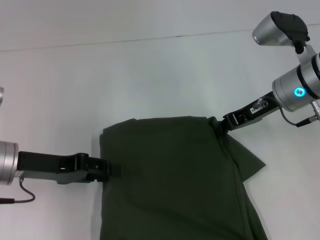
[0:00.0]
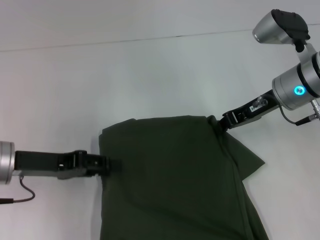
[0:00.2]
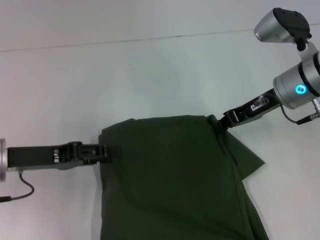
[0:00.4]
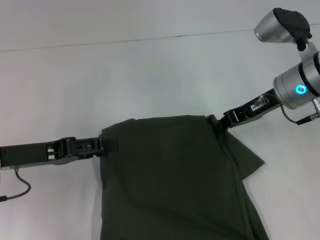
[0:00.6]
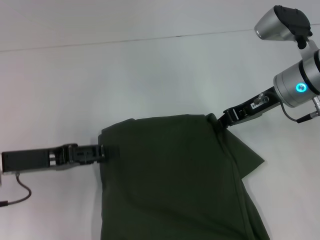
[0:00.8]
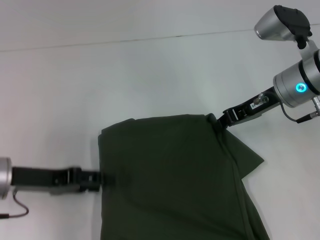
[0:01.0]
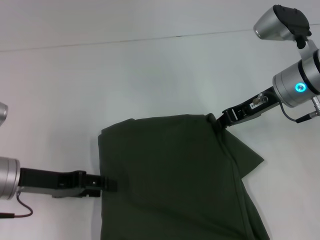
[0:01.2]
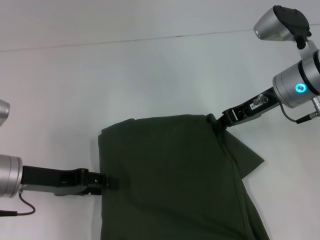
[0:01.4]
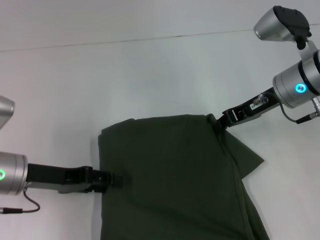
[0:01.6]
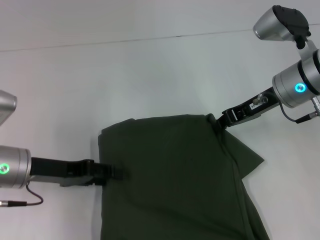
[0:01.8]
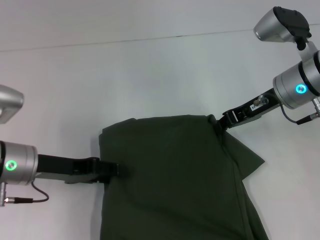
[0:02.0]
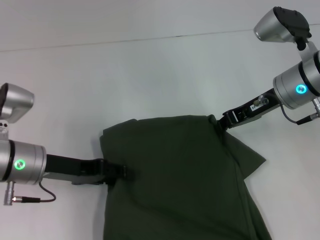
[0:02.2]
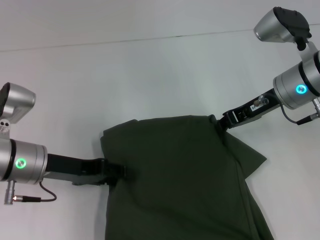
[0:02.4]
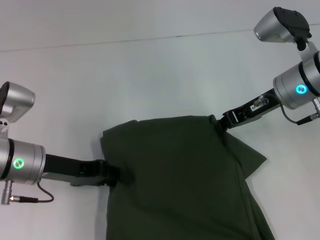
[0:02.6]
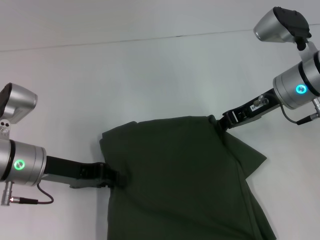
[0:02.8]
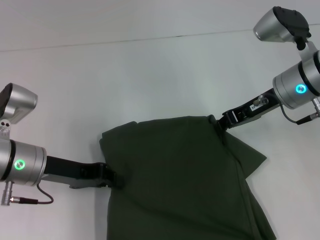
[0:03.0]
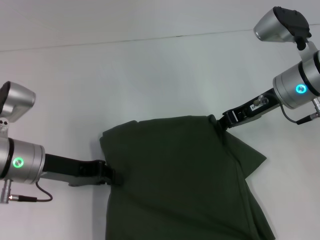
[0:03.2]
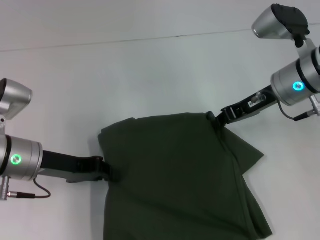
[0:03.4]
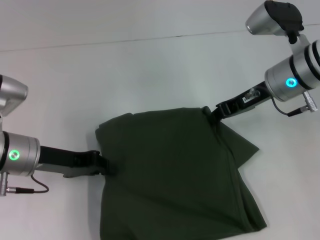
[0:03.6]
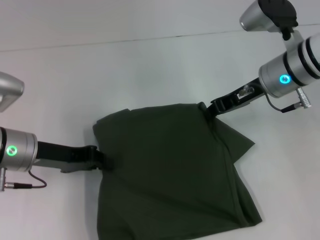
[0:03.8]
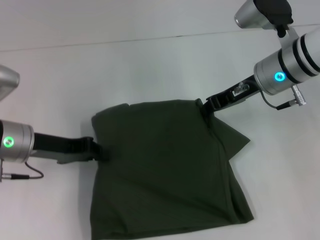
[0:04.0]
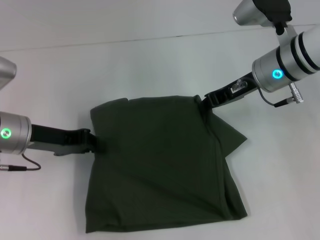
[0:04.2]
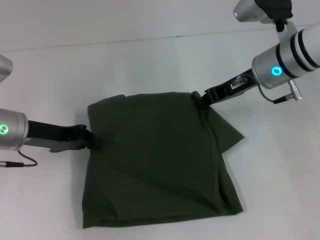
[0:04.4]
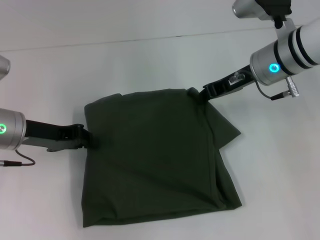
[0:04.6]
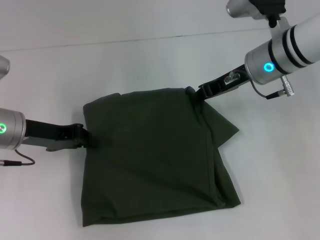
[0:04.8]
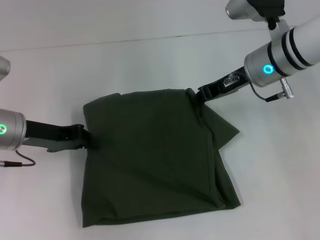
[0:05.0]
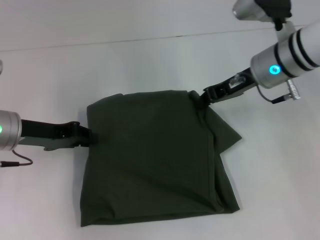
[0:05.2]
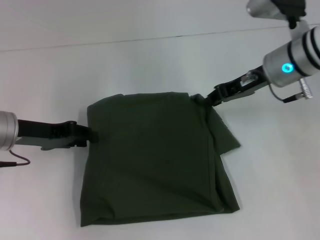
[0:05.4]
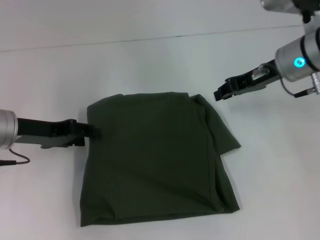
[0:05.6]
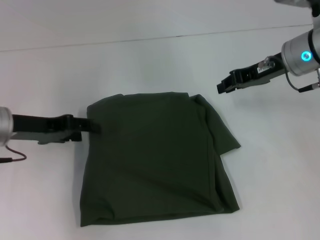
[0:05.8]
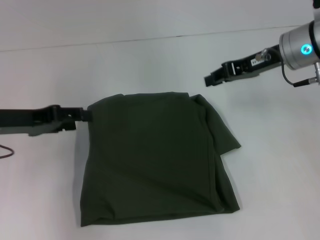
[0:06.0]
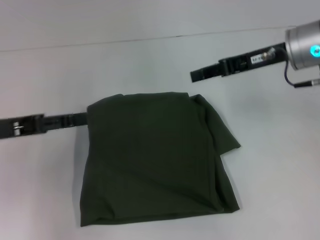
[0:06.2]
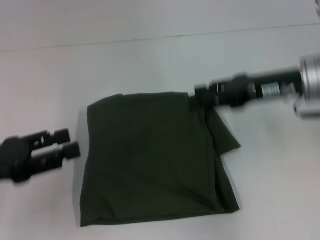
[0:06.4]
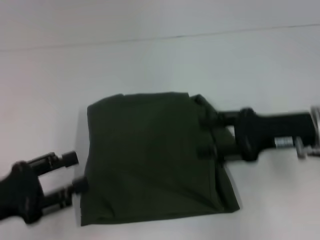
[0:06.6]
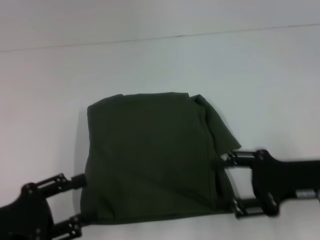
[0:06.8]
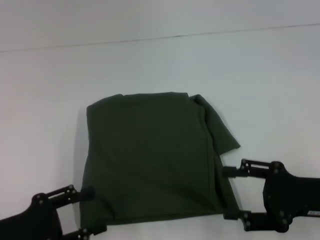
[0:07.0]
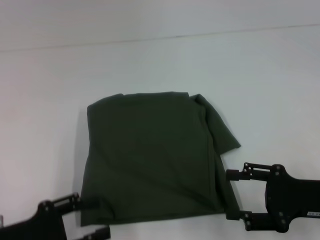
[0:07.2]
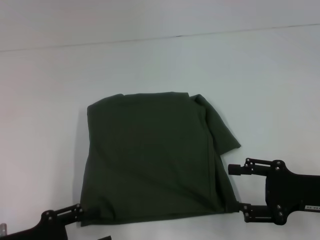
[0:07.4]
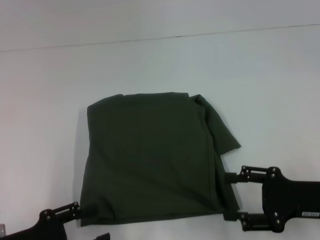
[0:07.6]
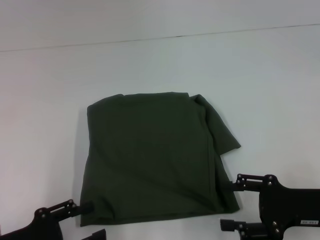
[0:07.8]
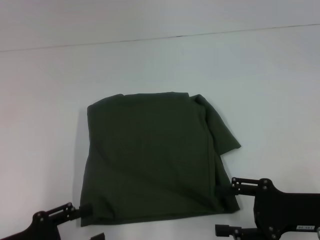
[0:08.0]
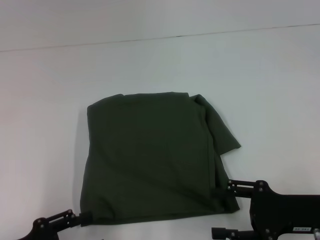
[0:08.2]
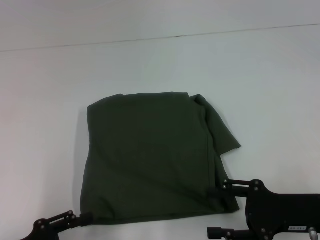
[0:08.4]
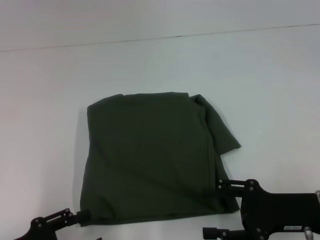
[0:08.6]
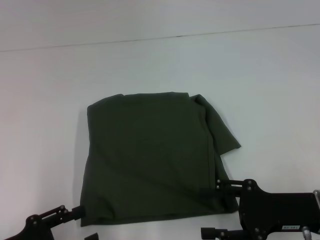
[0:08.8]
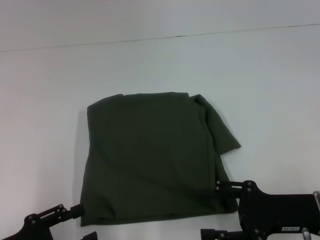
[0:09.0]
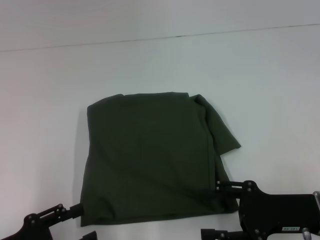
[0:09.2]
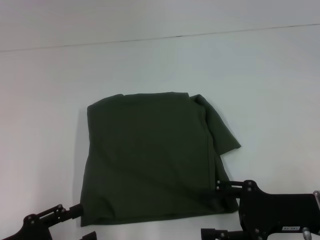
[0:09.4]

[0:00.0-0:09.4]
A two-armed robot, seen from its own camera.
0:00.0 to 0:01.6: The grippers stay close to where they were, moving slightly.
0:01.6 to 0:03.2: The left gripper closes up.
0:03.2 to 0:04.8: The right gripper ends up some 5 cm from where it was.
0:04.8 to 0:06.2: The left gripper is displaced backward and to the left by about 5 cm, and opens; the right gripper moves about 5 cm.
0:06.2 to 0:07.8: Both grippers travel together backward and downward, approximately 20 cm. The right gripper opens.
0:07.8 to 0:09.4: There are only small adjustments of the grippers.

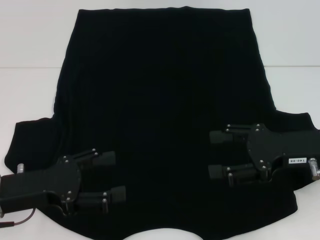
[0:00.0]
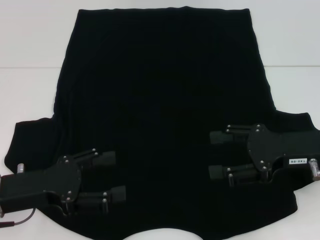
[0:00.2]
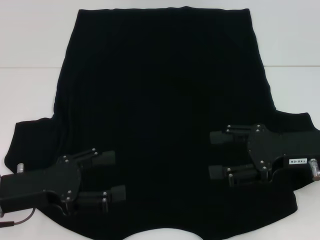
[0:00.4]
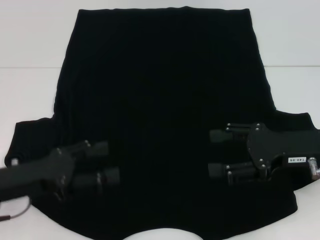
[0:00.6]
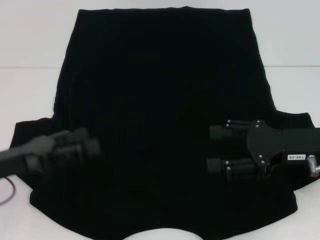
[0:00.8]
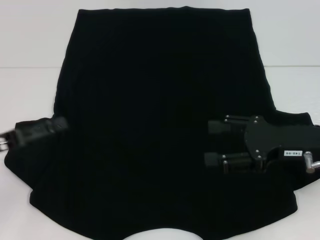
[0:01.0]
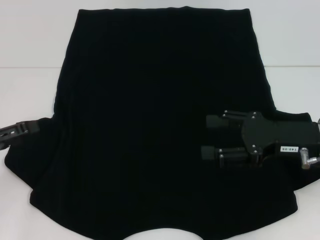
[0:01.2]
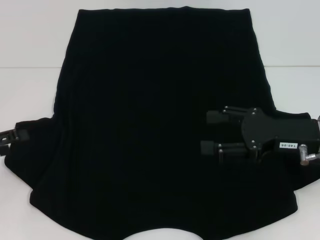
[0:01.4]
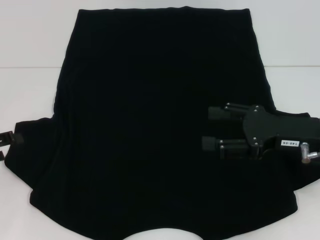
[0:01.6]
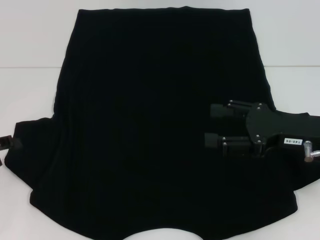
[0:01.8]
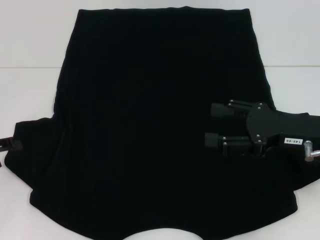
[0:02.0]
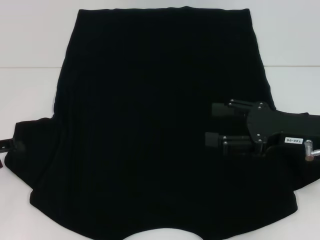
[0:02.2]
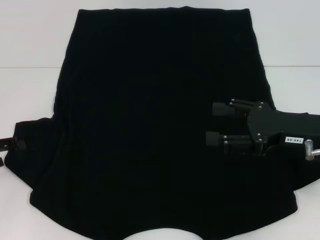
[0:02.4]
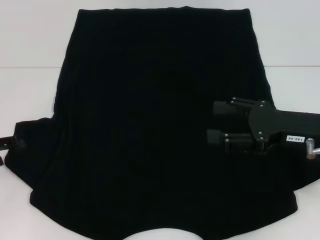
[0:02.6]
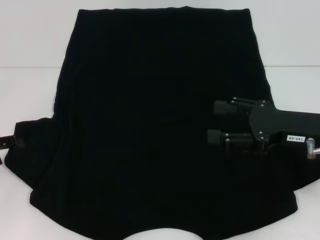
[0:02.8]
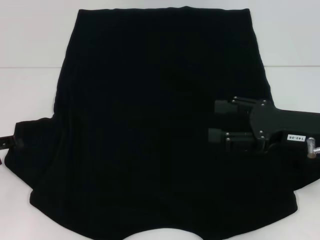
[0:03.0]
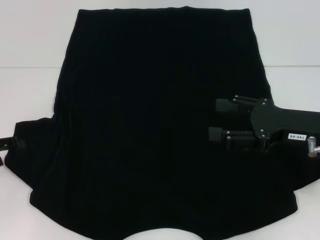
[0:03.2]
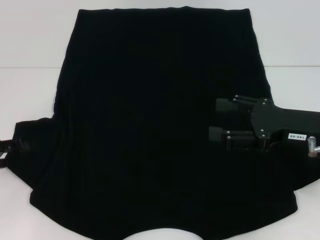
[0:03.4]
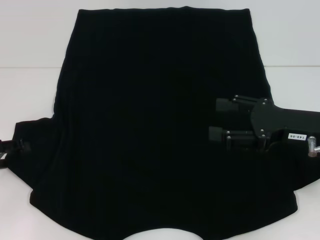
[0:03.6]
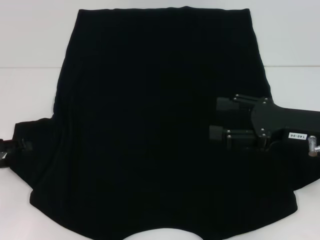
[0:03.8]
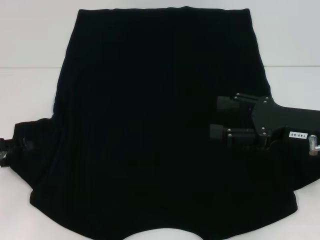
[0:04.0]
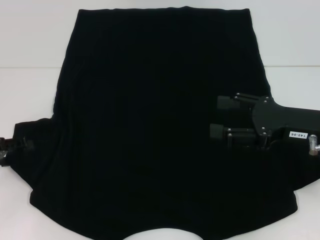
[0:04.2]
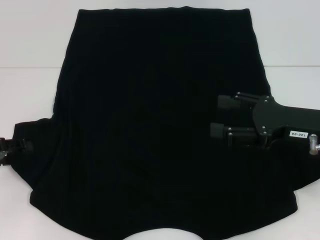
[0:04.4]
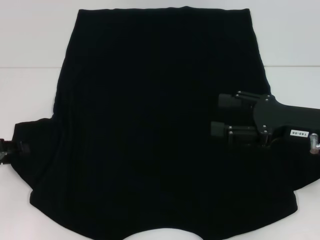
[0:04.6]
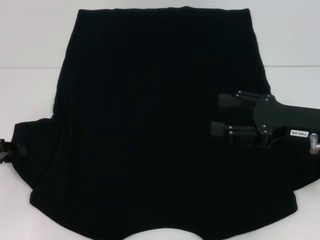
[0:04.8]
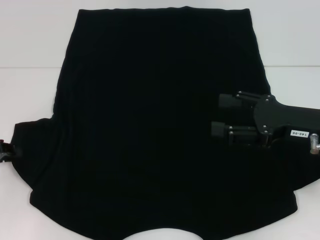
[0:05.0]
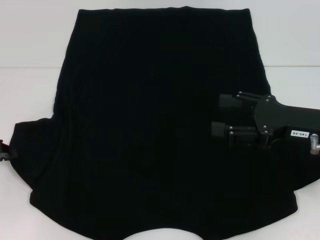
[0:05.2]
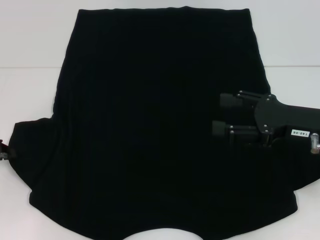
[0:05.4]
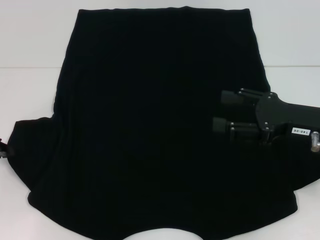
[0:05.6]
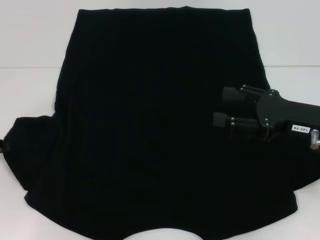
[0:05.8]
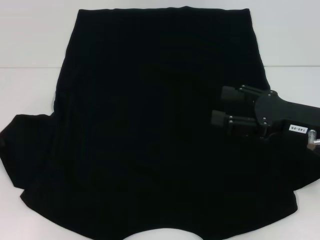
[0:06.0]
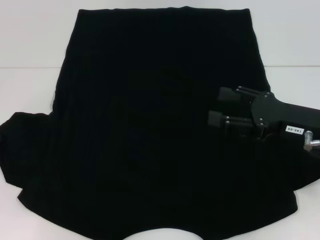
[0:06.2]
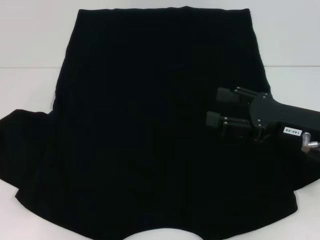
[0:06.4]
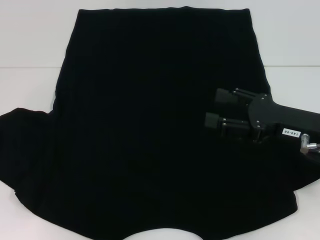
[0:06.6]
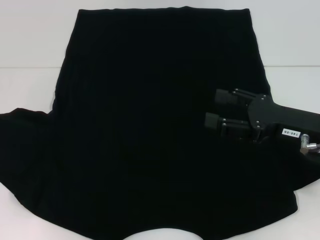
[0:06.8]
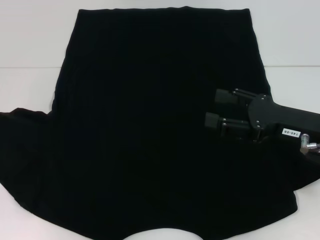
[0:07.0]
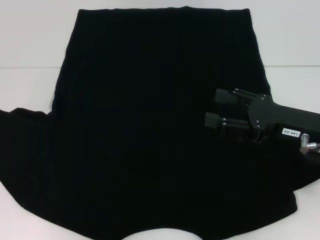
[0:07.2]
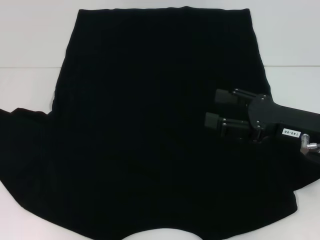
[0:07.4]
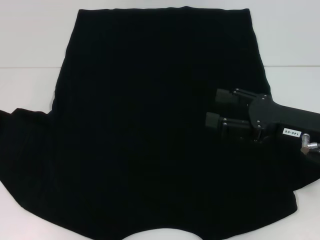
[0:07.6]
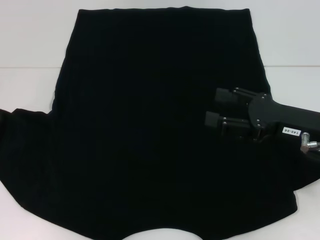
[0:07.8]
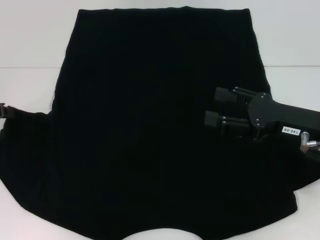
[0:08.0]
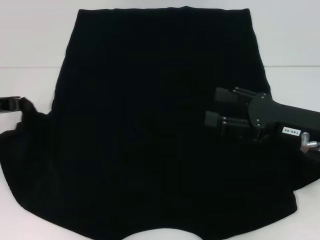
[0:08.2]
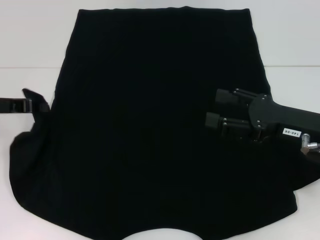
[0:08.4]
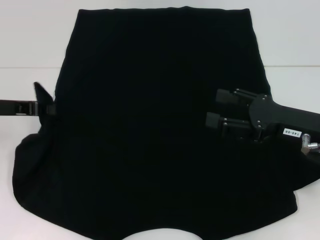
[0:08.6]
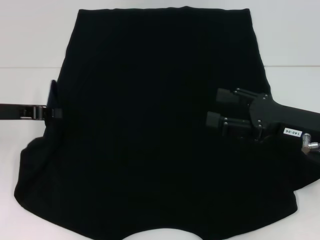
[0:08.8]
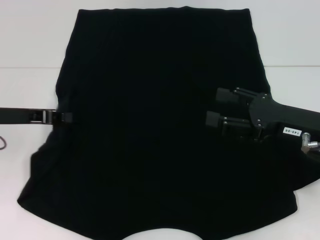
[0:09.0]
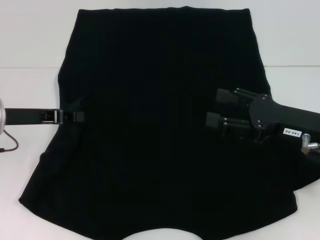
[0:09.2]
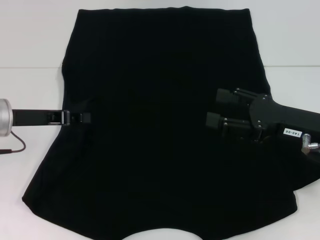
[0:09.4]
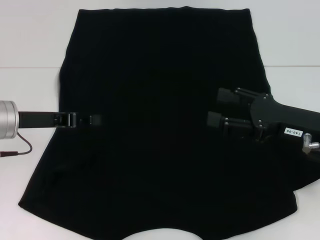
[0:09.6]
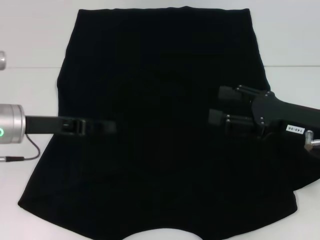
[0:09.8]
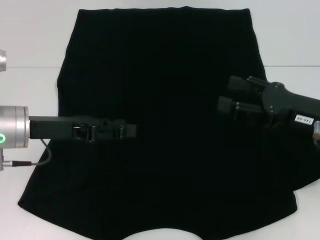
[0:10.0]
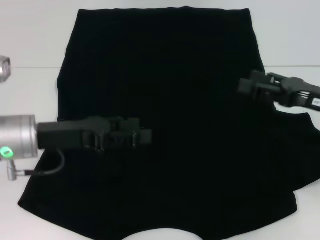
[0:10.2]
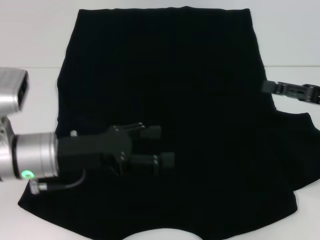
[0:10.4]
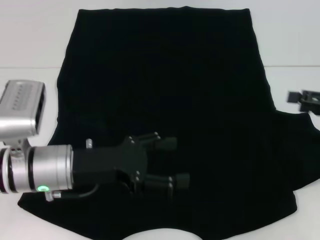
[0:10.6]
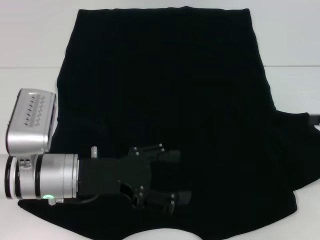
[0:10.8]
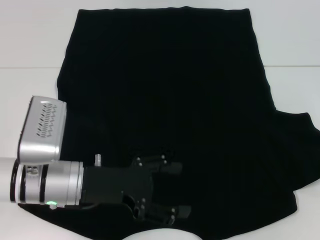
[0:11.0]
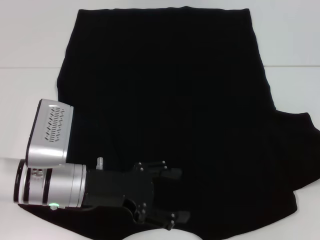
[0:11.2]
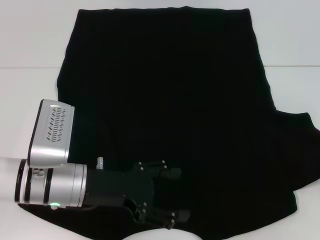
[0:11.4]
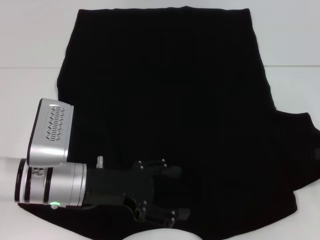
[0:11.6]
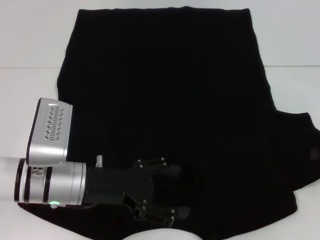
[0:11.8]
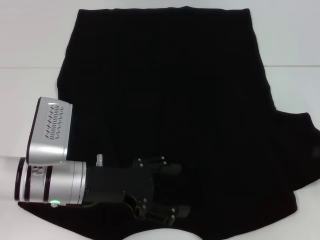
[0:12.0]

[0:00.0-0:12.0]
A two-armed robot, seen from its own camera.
Step, 0:00.0 to 0:09.6: Fold the bottom left sleeve with your left hand.
0:00.0 to 0:01.6: The left gripper travels to the left by about 10 cm.
0:01.6 to 0:03.0: The grippers move only a little.
0:03.0 to 0:04.4: Both grippers stay put.
0:04.4 to 0:06.0: The left gripper closes its fingers.
0:06.0 to 0:07.6: The grippers stay close to where they were, moving slightly.
0:07.6 to 0:09.0: The left gripper heads to the right, covering roughly 5 cm.
0:09.0 to 0:10.4: The right gripper moves to the right, approximately 10 cm; the left gripper shifts roughly 10 cm to the right and backward, and opens its fingers.
0:10.4 to 0:12.0: The right gripper travels to the right by approximately 5 cm.

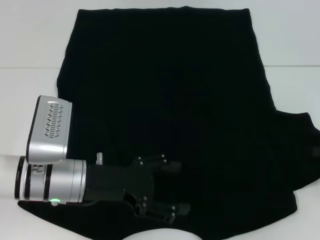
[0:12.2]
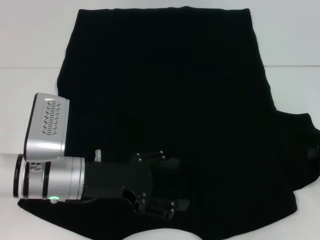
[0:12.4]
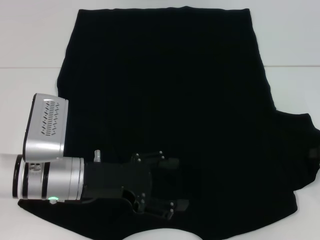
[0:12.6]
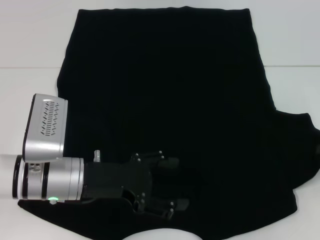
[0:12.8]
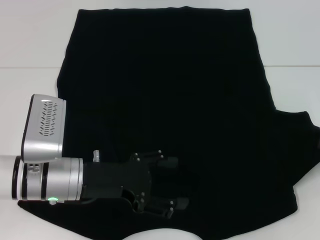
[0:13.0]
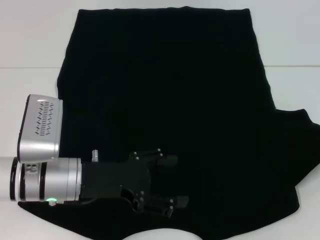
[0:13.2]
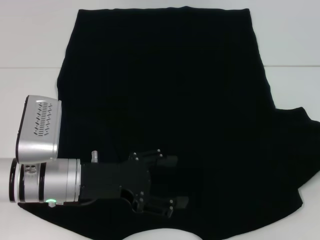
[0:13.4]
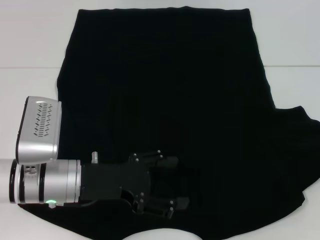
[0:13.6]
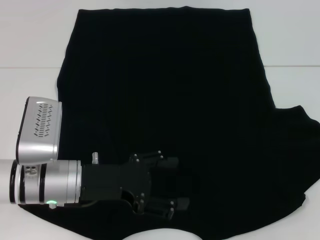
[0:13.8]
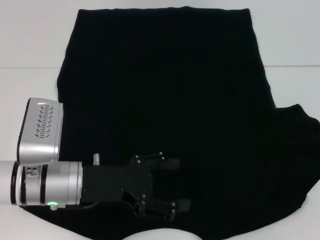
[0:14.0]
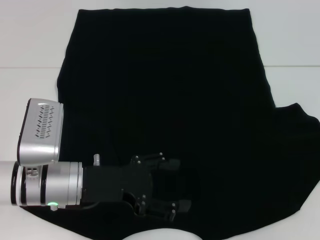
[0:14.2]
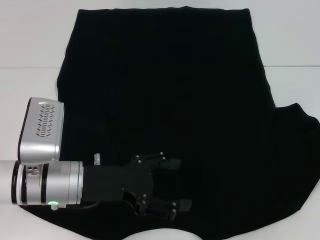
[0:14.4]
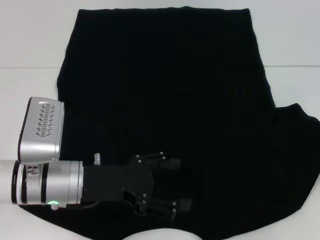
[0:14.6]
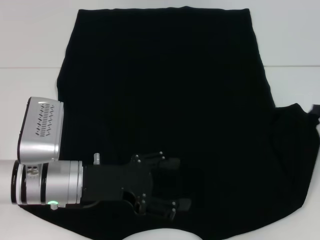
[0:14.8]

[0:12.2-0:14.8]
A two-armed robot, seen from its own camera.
0:12.2 to 0:13.4: The right gripper closes.
0:13.4 to 0:14.8: The right gripper moves some 5 cm.
